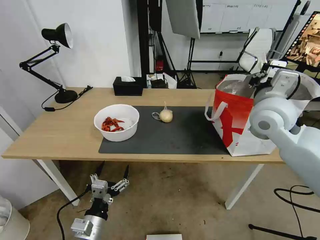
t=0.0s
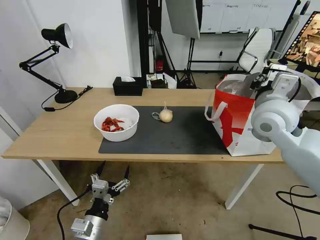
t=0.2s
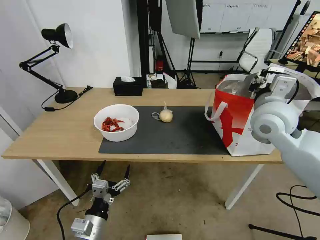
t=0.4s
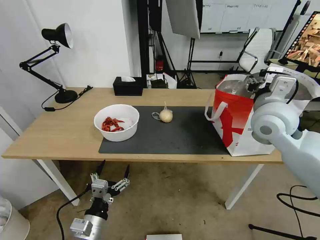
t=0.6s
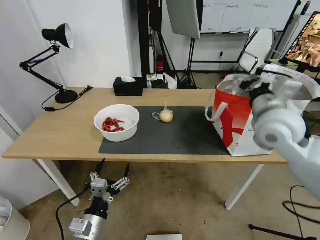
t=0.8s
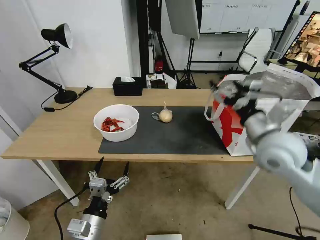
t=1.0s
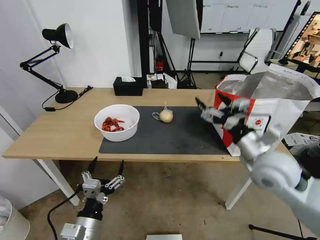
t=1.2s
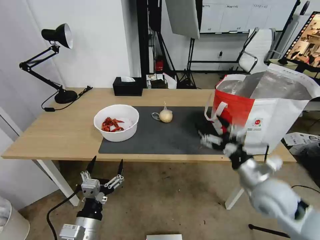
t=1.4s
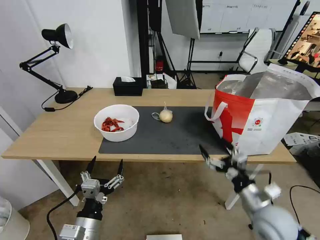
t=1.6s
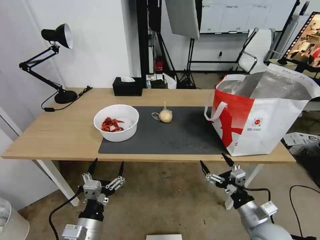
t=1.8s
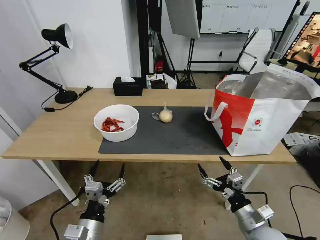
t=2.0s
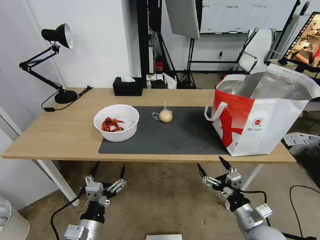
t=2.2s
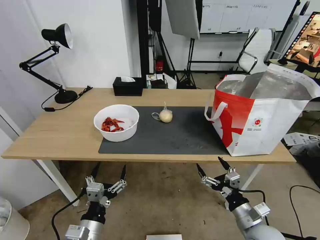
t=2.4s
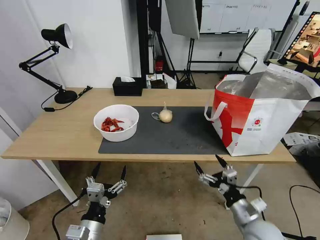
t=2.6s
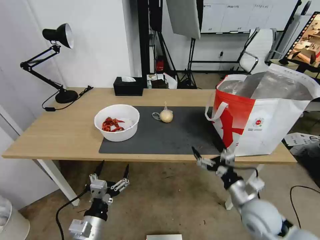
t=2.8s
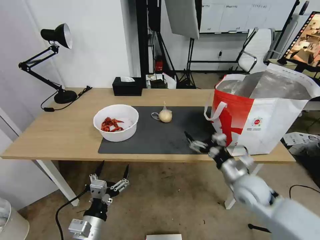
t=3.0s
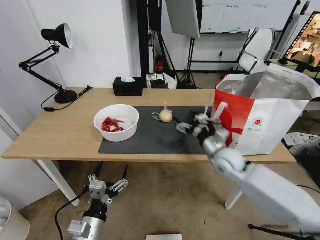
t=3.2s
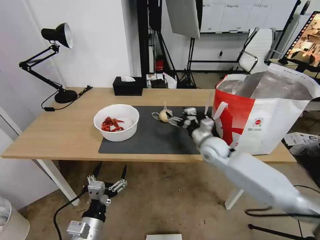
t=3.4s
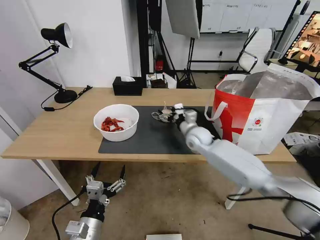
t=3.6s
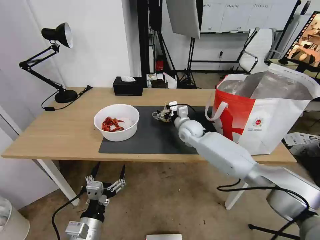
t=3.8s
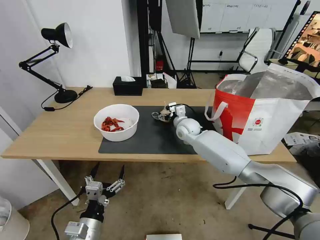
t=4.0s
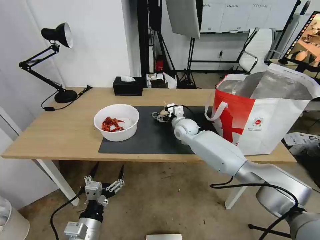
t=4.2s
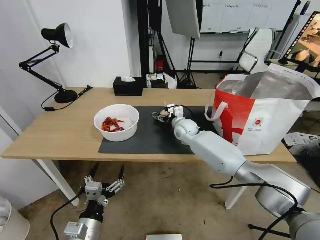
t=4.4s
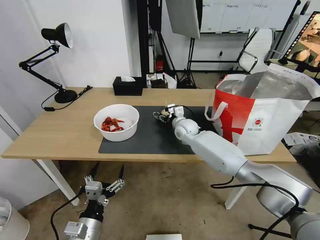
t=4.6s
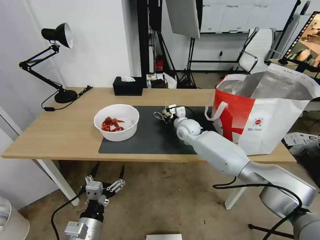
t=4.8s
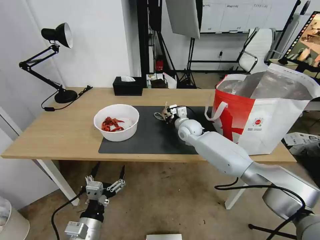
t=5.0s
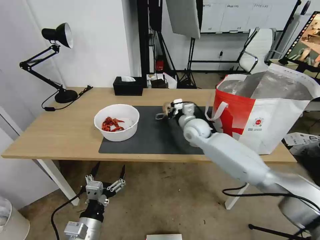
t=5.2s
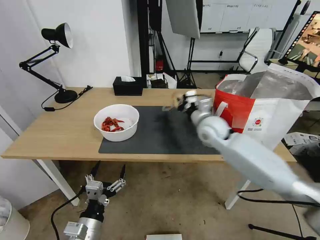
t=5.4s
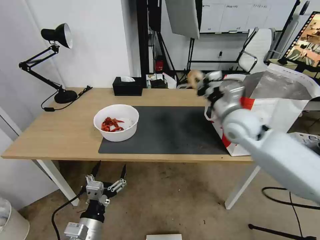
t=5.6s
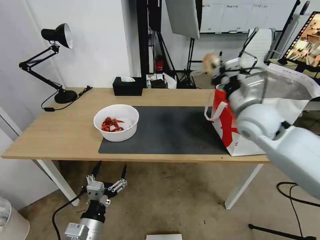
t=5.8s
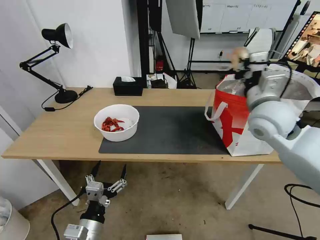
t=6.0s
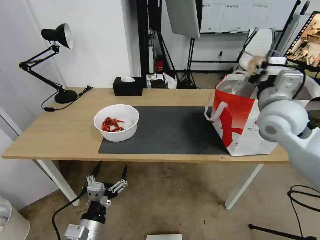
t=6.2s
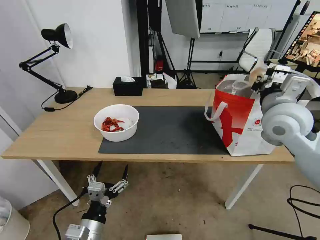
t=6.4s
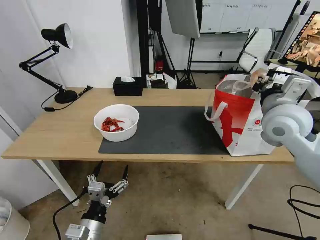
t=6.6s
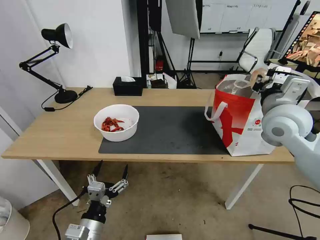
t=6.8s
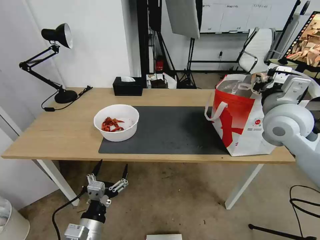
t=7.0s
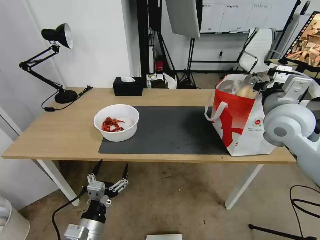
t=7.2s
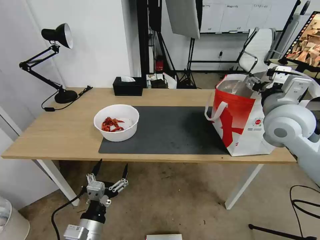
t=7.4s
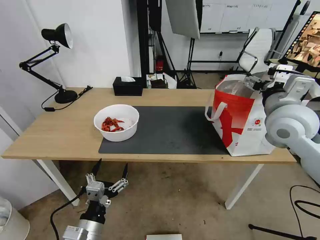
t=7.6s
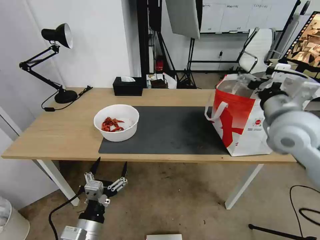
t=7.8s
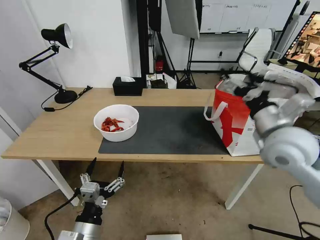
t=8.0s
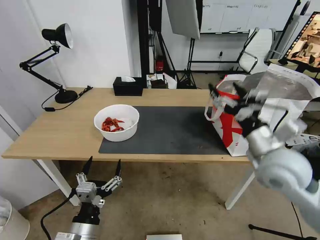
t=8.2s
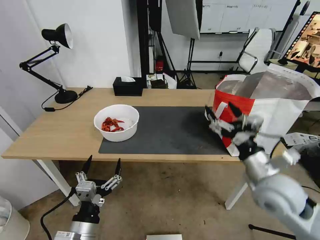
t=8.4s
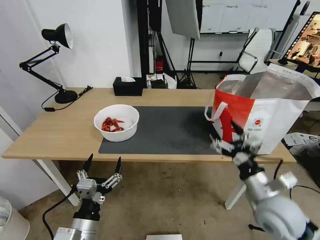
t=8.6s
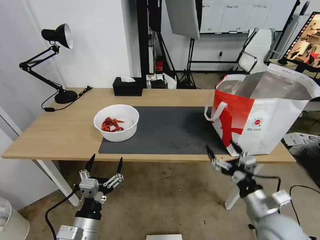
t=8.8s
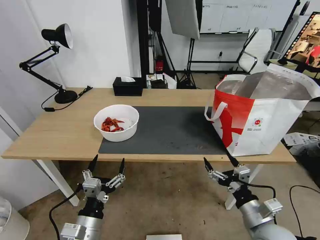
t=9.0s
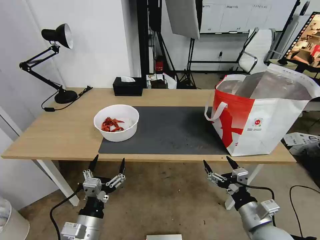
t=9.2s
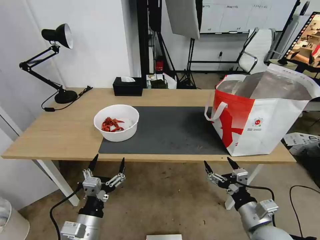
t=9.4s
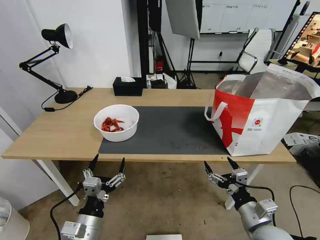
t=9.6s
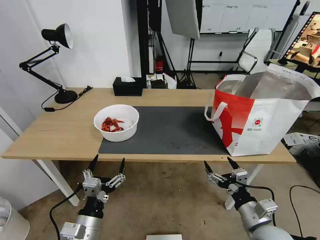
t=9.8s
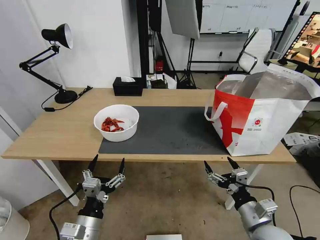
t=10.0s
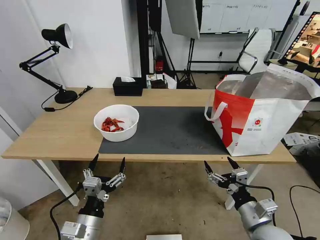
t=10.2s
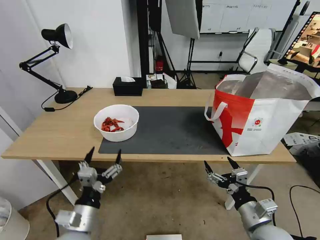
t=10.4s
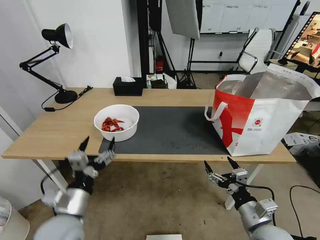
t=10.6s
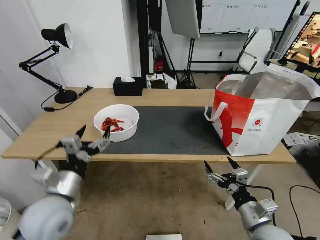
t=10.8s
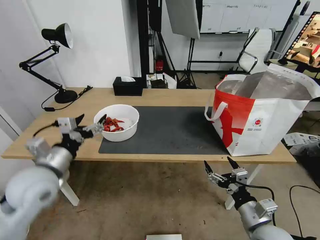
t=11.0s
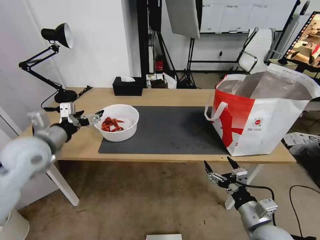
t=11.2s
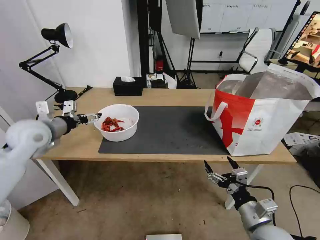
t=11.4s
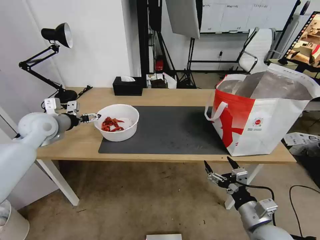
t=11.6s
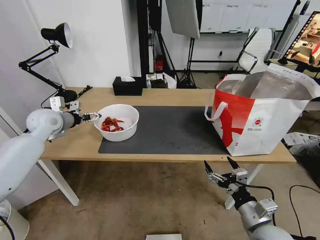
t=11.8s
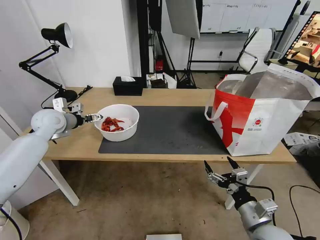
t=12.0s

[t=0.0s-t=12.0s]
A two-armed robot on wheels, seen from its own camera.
Task of the whole recording: Pick up the trash from the table and place it into the takeout bag.
t=0.0s to t=1.6s: The right gripper moves downward and backward, some 30 cm, and opens up.
t=1.6s to t=3.0s: The right gripper heads forward, covering approximately 10 cm.
t=3.0s to t=4.4s: The right gripper goes some 30 cm forward and to the left.
t=4.4s to t=6.0s: The right gripper travels upward, backward and to the right by about 30 cm, and closes its fingers.
t=6.0s to t=7.6s: The right gripper opens.
t=7.6s to t=9.0s: The right gripper heads downward and backward, covering approximately 30 cm.
t=9.0s to t=10.4s: The grippers make only small movements.
t=10.4s to t=12.0s: The left gripper shifts about 40 cm forward, to the left and upward.

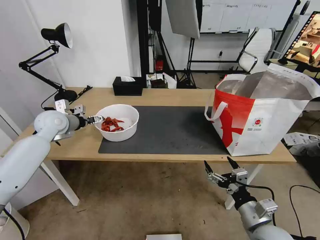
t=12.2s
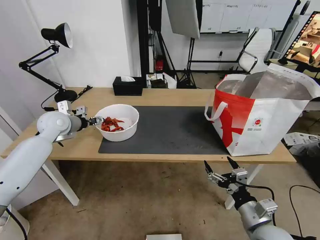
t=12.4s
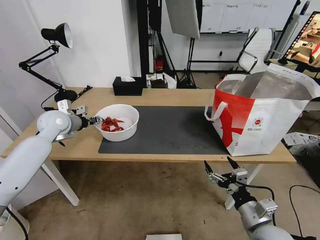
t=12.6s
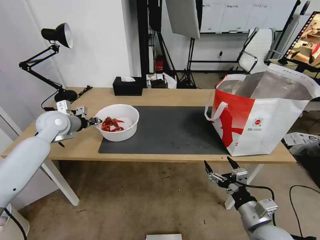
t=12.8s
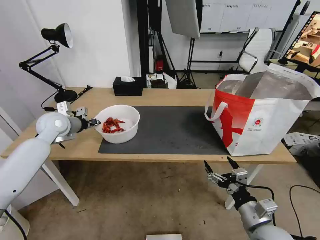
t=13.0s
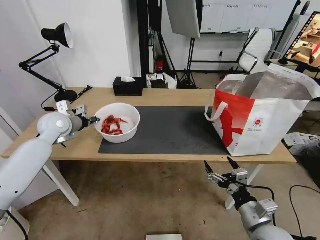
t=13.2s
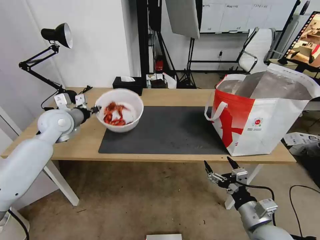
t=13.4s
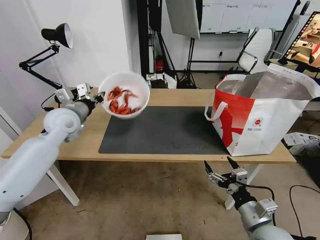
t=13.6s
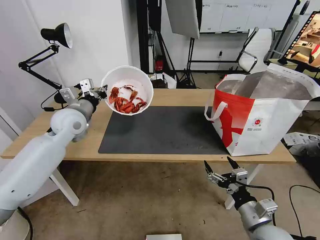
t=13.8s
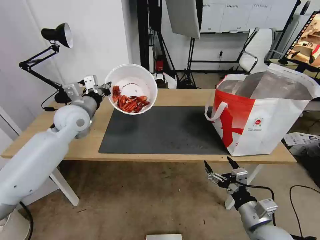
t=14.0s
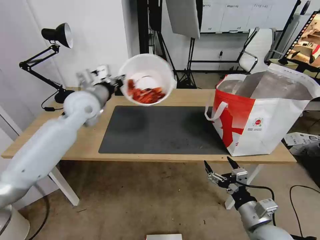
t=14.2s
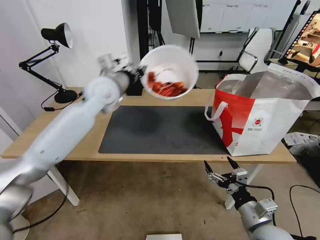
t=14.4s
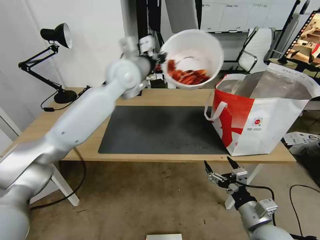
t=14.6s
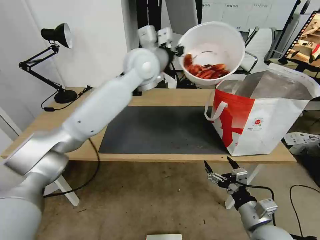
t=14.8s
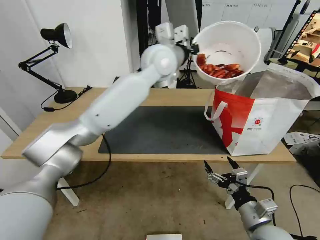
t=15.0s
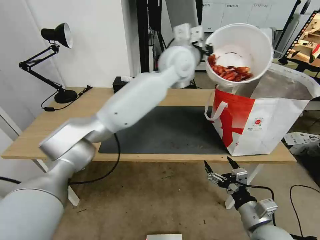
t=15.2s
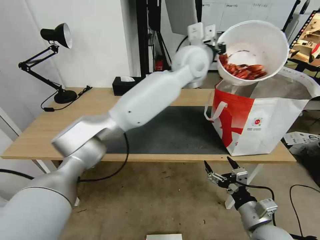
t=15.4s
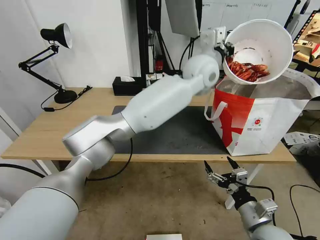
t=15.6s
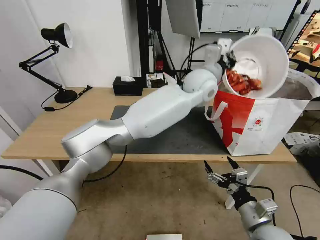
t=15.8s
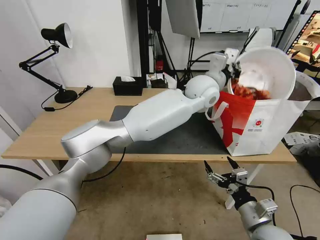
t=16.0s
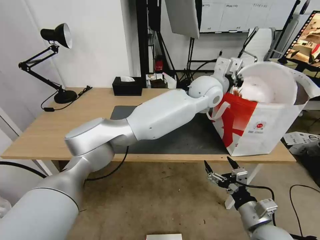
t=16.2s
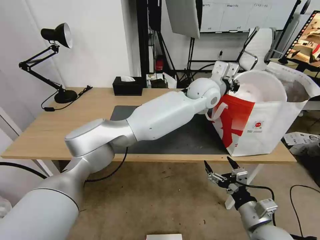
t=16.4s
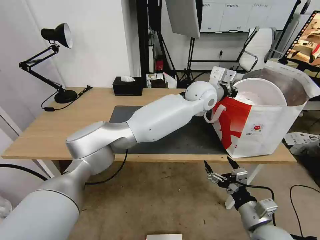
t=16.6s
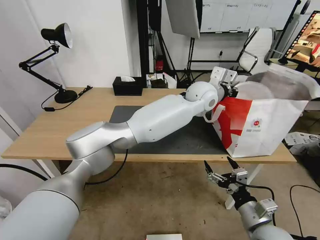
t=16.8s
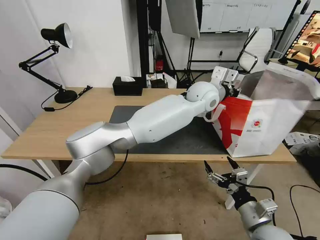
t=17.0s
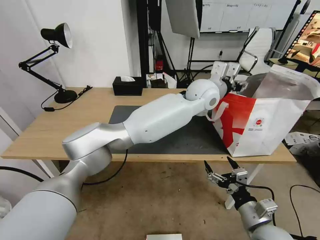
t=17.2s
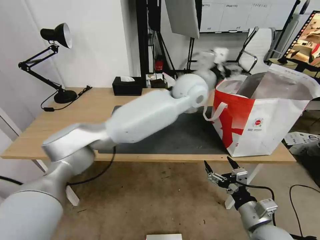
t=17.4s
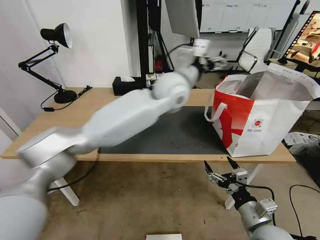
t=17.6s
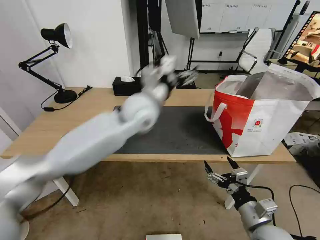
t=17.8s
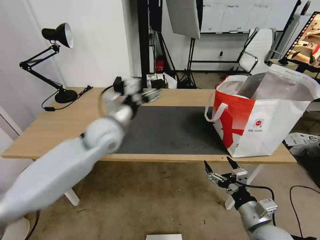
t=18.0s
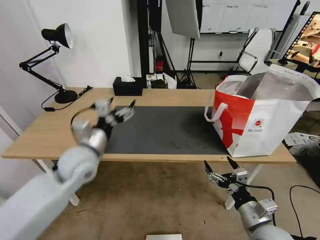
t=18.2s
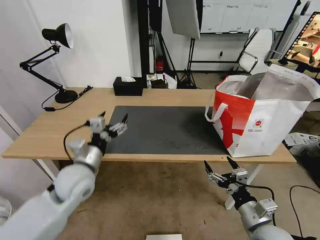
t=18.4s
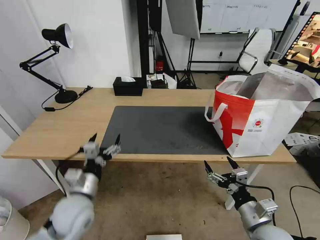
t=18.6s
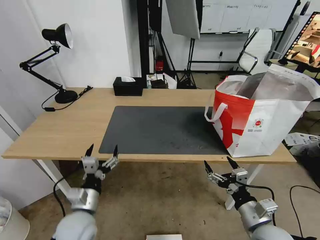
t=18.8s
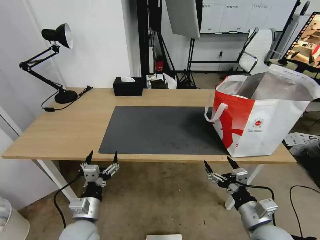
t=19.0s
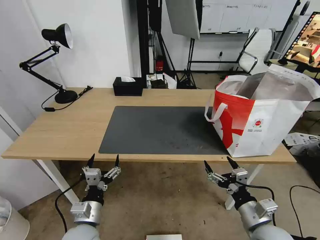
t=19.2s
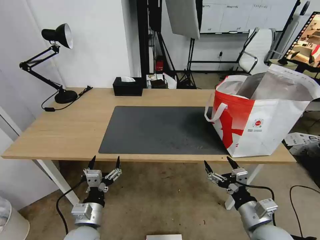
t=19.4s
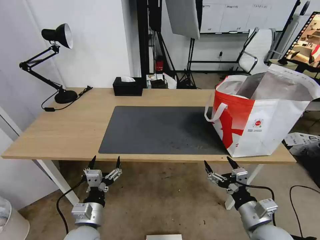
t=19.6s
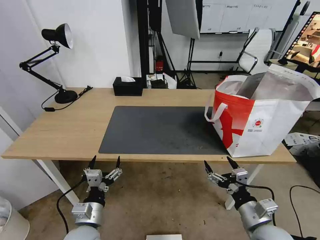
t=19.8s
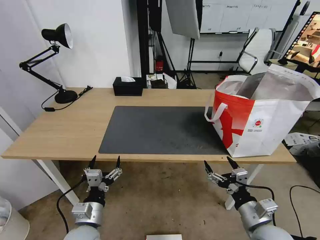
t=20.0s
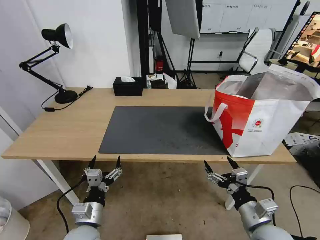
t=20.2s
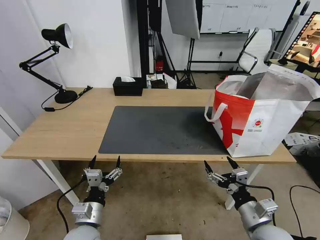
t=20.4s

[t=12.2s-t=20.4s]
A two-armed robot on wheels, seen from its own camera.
Task of the whole recording: Pick up the trash from the table and place it into the takeout bag.
t=12.2s to t=13.8s: The left gripper moves to the right, approximately 10 cm, and closes up.
t=13.8s to t=15.4s: The left gripper travels to the right and upward by some 40 cm.
t=15.4s to t=17.2s: The left gripper goes approximately 10 cm downward, and opens up.
t=17.2s to t=18.8s: The left gripper moves to the left, backward and downward, some 50 cm, and opens up.
t=18.8s to t=20.4s: There are only small adjustments of the grippers.
